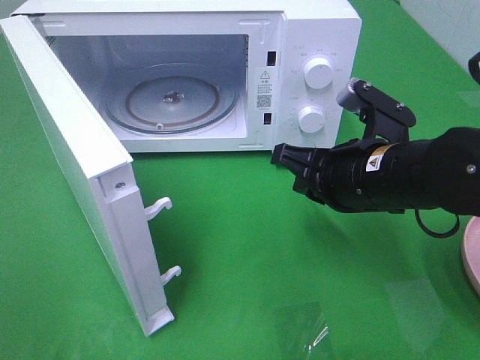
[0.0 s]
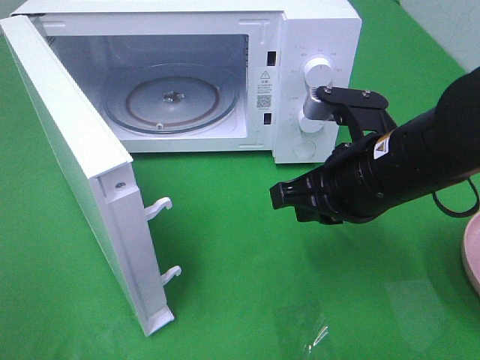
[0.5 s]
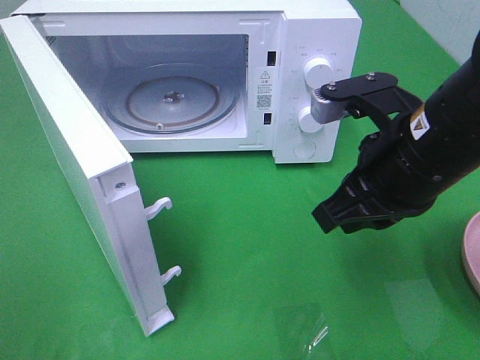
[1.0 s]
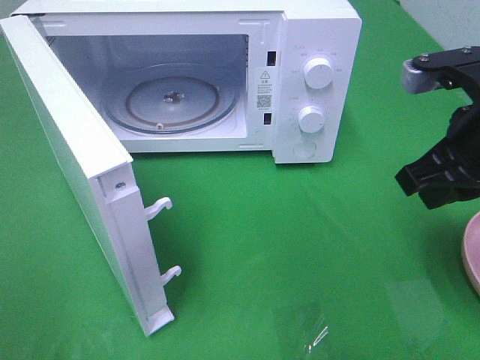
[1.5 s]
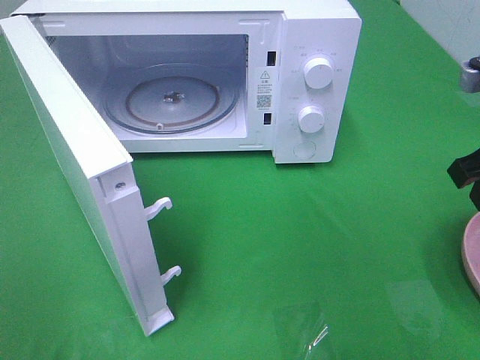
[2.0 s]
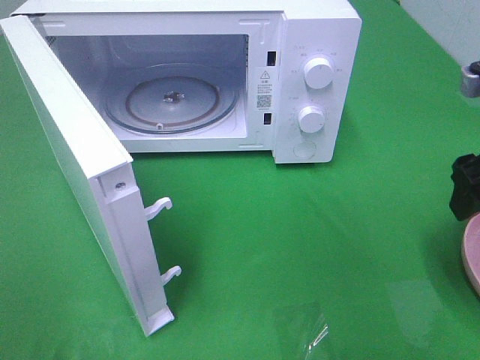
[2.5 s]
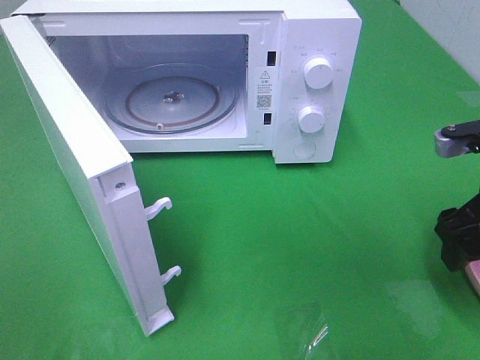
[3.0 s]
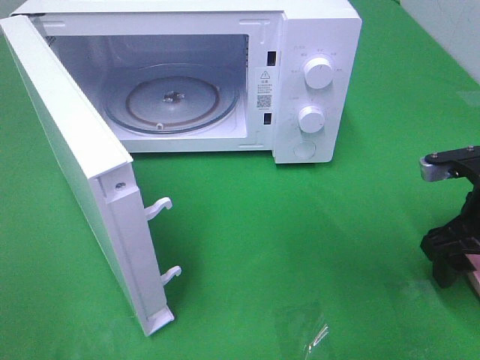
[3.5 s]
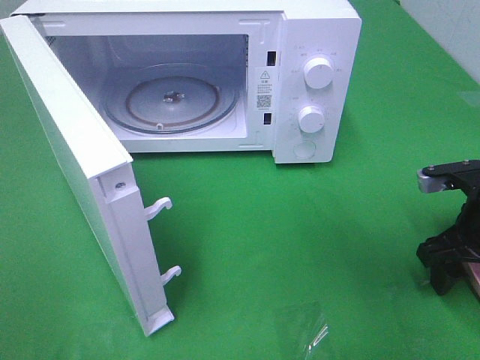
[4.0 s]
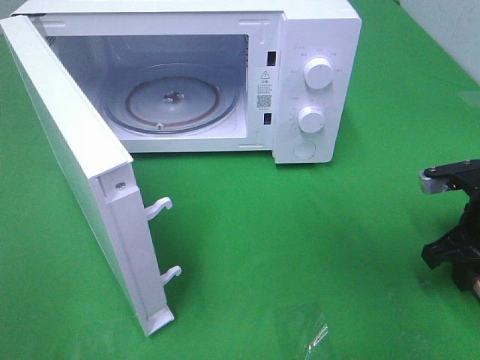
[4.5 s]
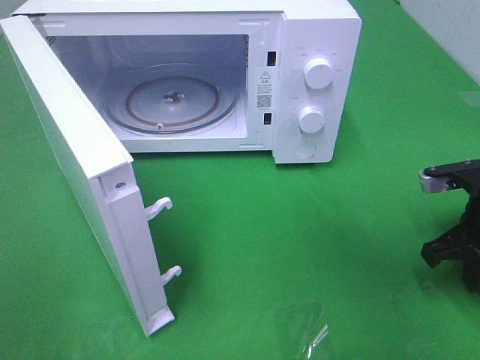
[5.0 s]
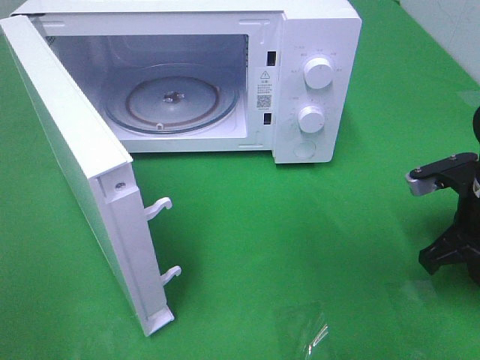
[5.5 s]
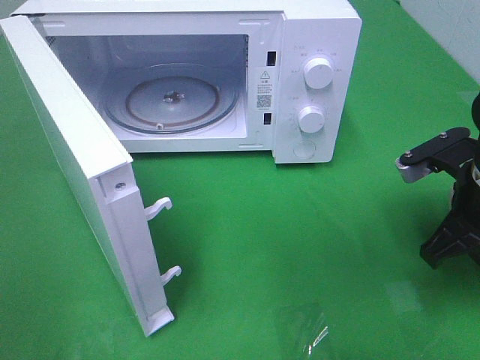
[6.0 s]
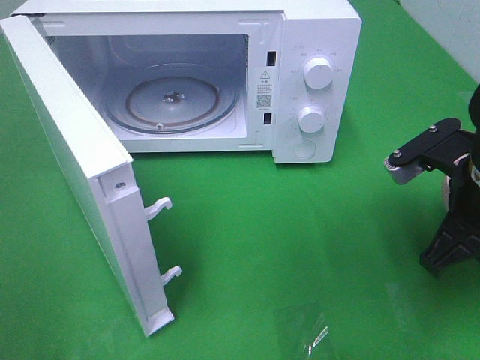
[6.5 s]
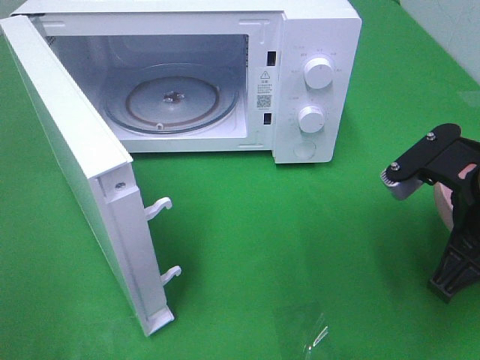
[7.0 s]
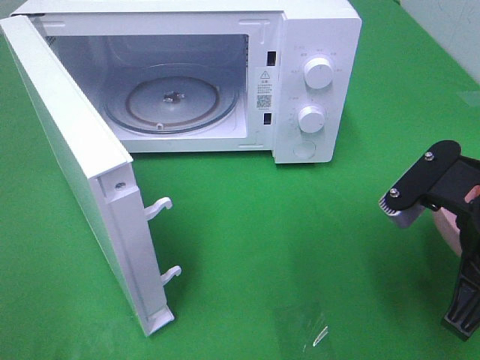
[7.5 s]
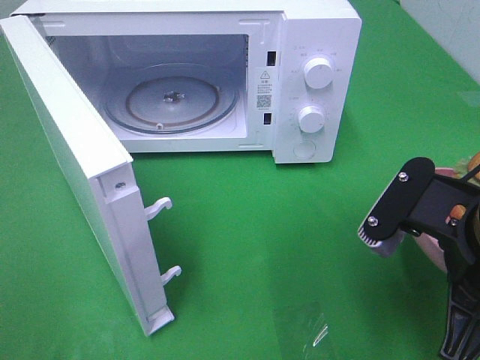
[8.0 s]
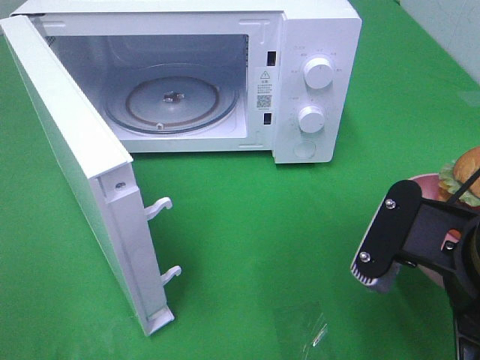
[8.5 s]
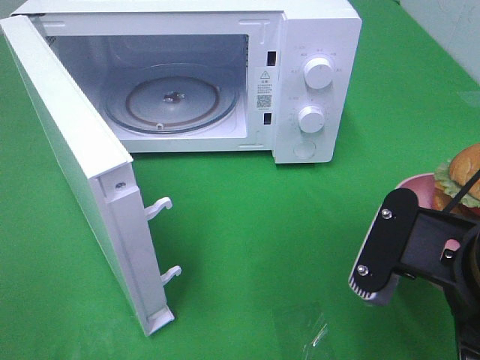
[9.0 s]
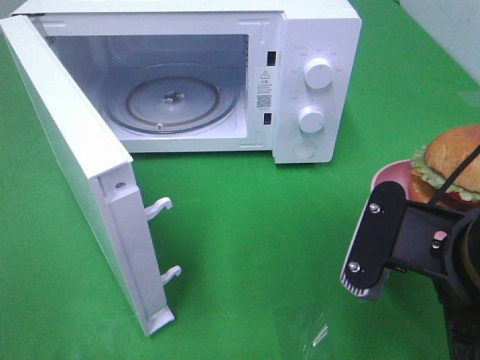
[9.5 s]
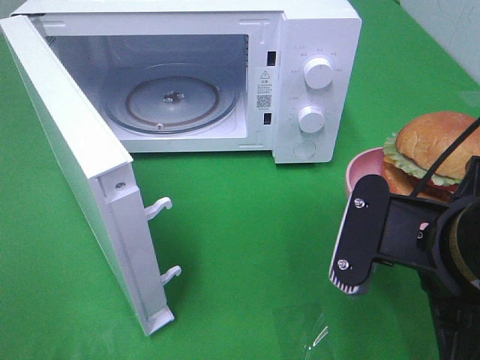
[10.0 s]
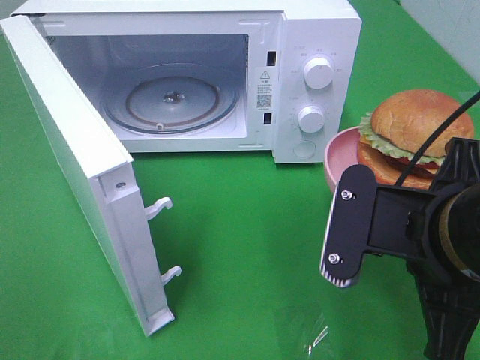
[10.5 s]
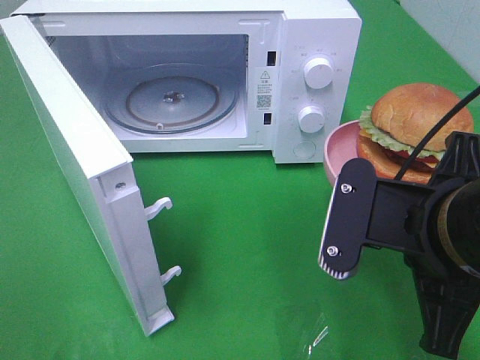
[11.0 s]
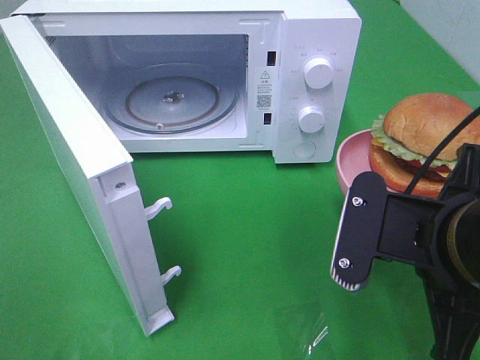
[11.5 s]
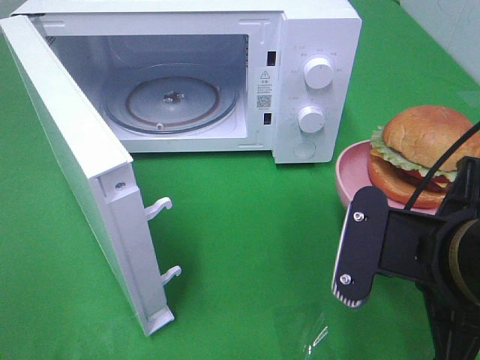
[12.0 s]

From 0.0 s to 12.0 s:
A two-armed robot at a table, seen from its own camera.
Task of the whole recording: Heat the burger.
Step, from 0.0 s to 5.5 s: Right hand: grab the plate with the hamburger.
From 0.0 s to 2.0 s: The right gripper is displaced to the right and upward by roughly 15 cm, and opens.
From 2.0 s to 4.0 s: The right gripper travels downward by some 15 cm, and opens its fingers.
From 4.0 s to 6.0 s: The right gripper is displaced upward by about 5 cm, and closes.
From 6.0 s to 8.0 s: The right gripper is displaced backward and to the left by about 10 cm.
From 10.0 s to 12.0 s: The grippers move only a little.

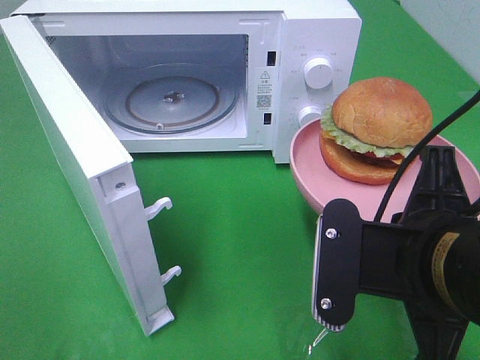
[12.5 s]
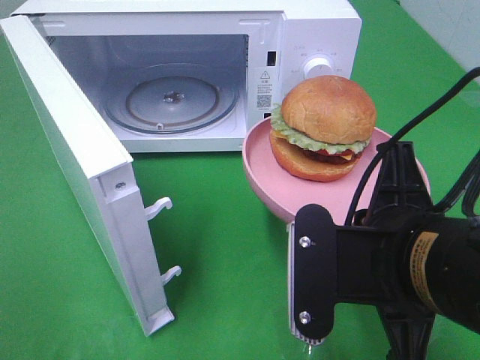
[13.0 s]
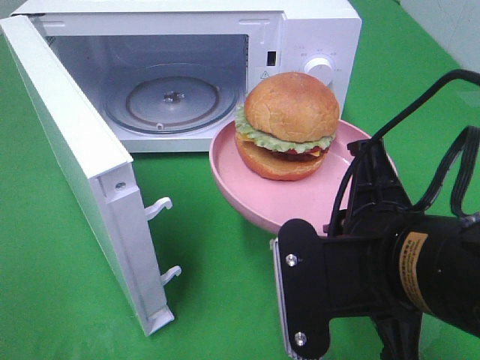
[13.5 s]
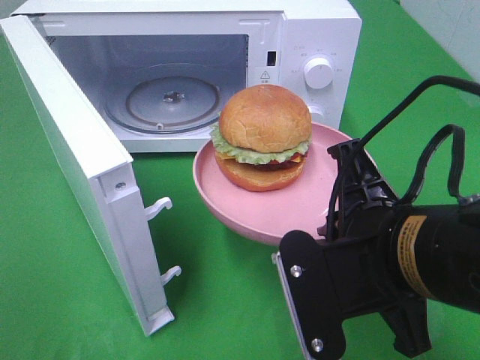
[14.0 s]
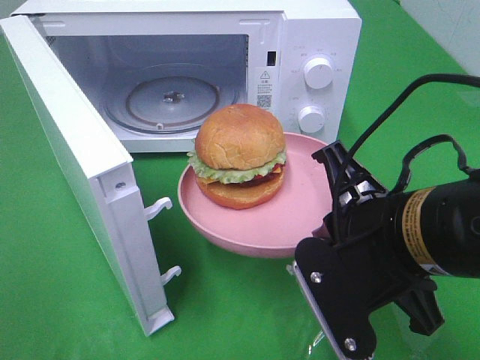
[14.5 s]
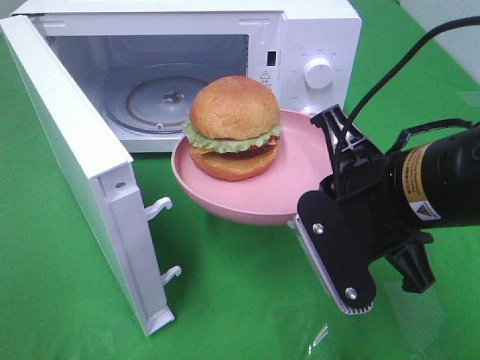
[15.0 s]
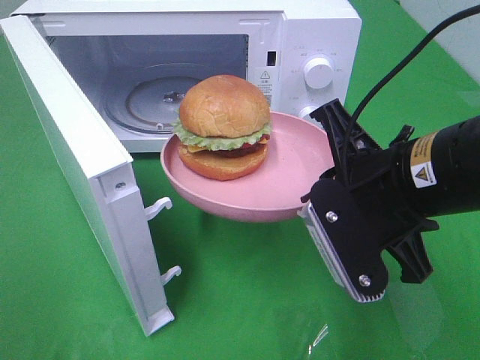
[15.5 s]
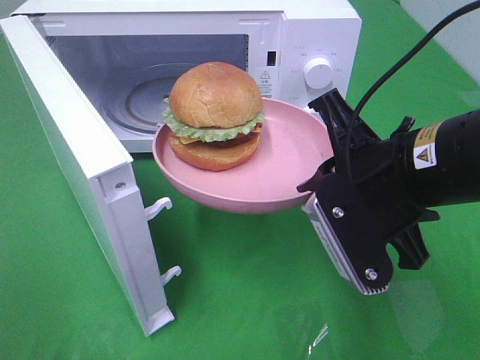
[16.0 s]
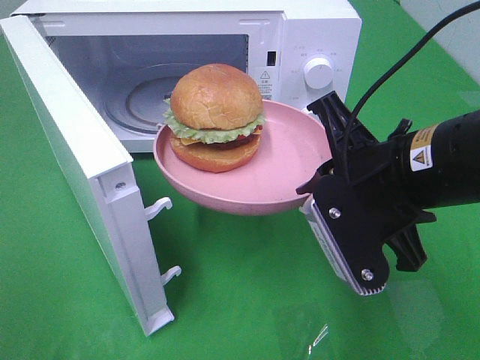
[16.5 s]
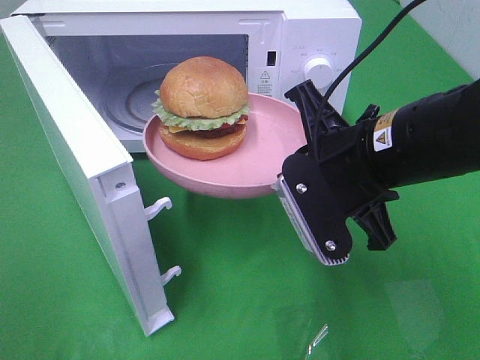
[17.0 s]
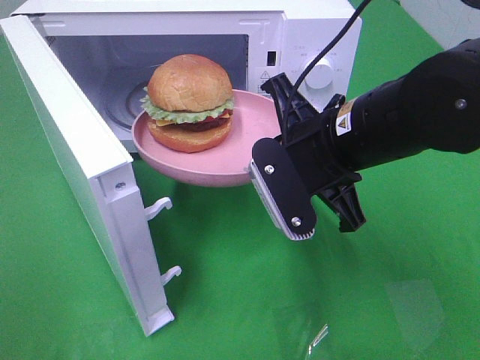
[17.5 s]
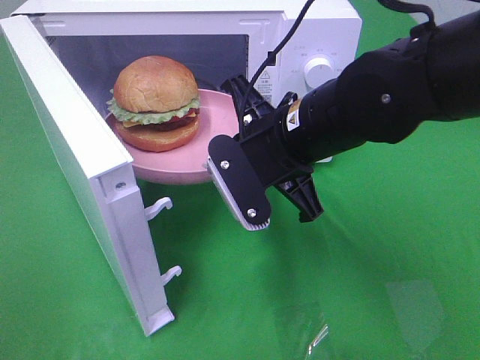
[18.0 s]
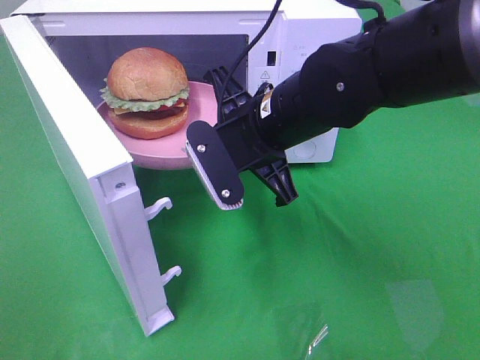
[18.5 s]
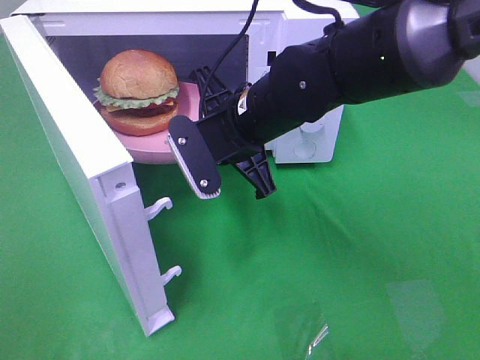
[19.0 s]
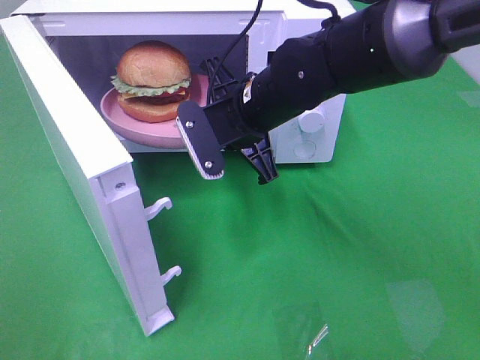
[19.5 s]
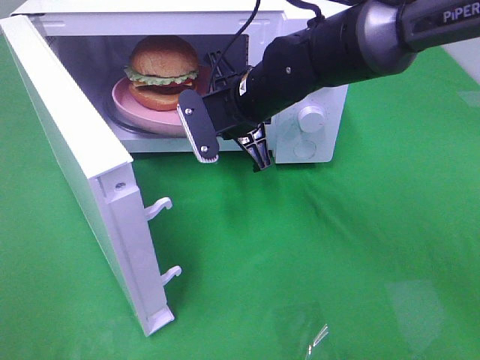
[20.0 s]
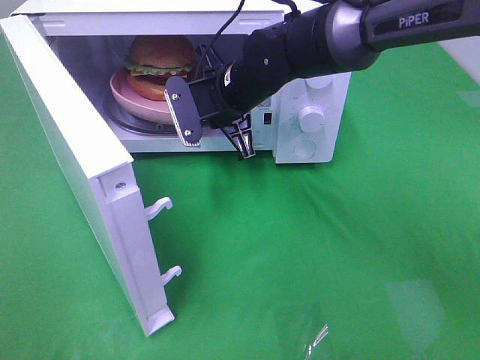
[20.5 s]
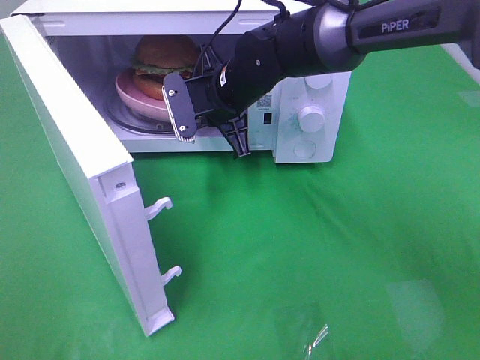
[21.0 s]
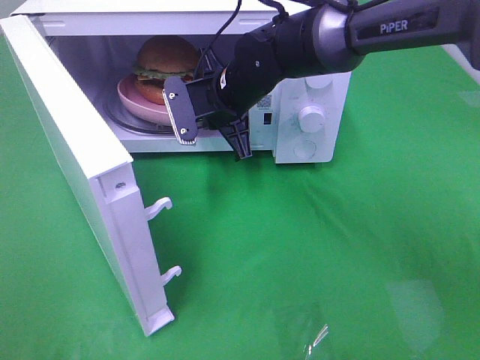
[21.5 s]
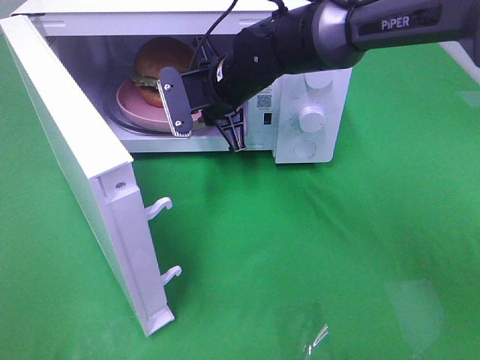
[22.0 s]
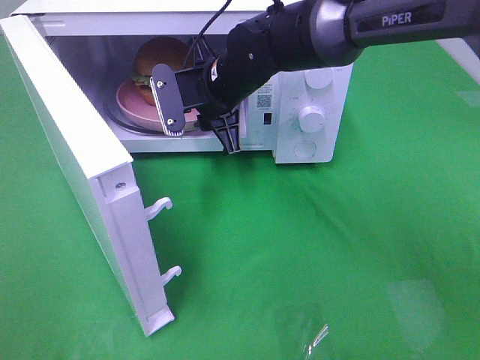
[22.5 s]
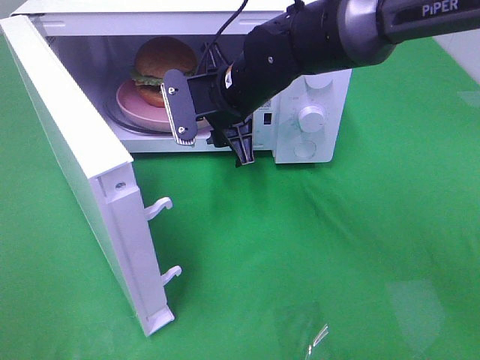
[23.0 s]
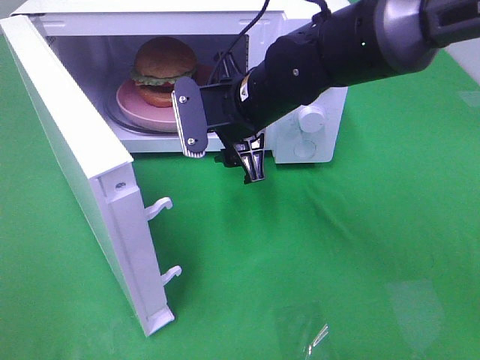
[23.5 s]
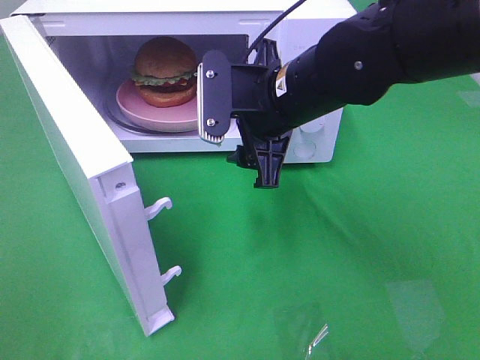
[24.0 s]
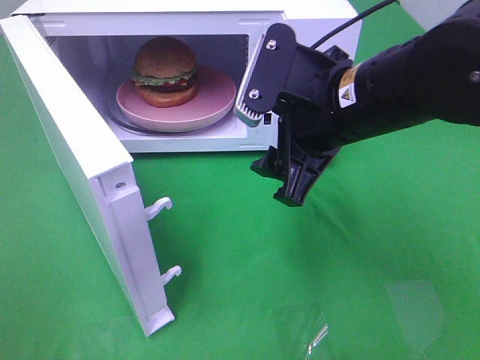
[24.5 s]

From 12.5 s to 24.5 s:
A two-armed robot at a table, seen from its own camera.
Task of the whole recording: Heat the burger.
Step, from 12.5 s to 22.0 s: Right hand: place the plate in the microwave.
From 14.5 s to 16.5 s: The right gripper shifts by roughly 5 cm.
From 16.5 s to 18.5 s: The right gripper moves to the left and forward, roughly 15 cm.
From 18.5 s to 20.5 s: The right gripper travels forward by roughly 10 cm.
From 20.5 s to 22.5 s: The right gripper opens.
From 22.5 s to 24.5 s: The right gripper goes roughly 20 cm backward, to the right and upward, and opens its fingers.

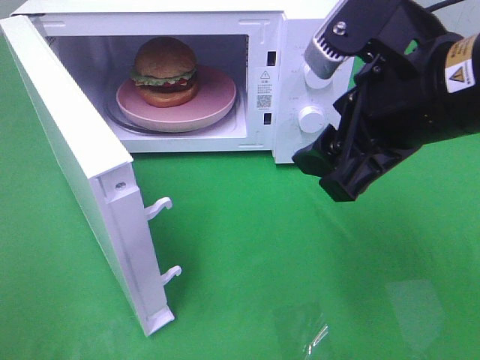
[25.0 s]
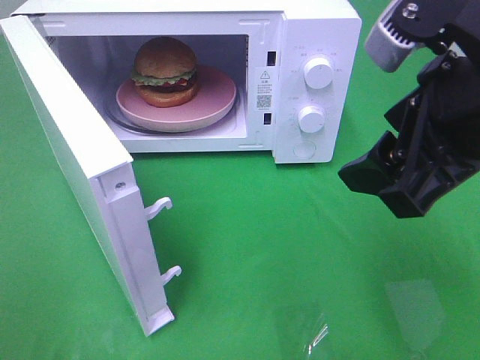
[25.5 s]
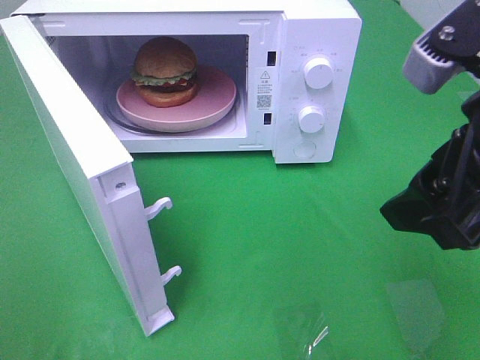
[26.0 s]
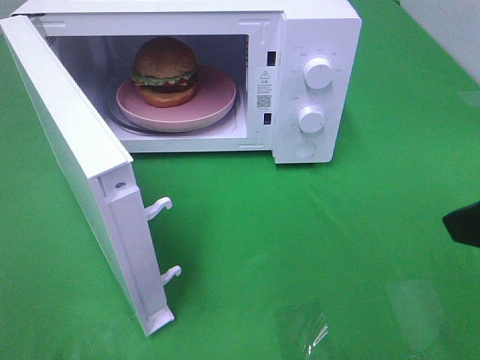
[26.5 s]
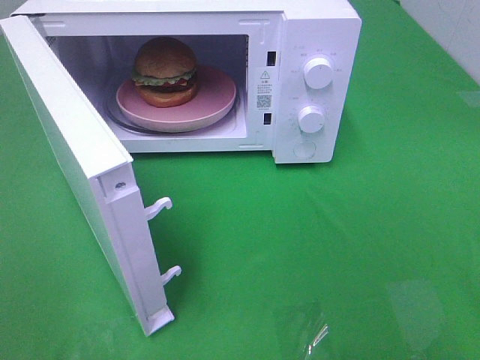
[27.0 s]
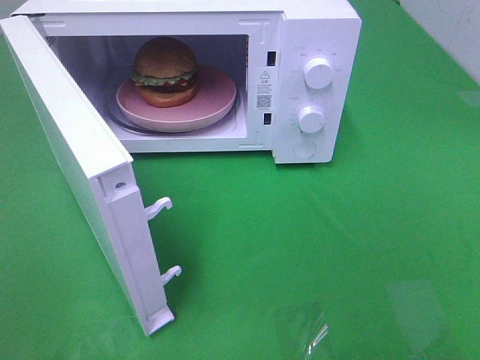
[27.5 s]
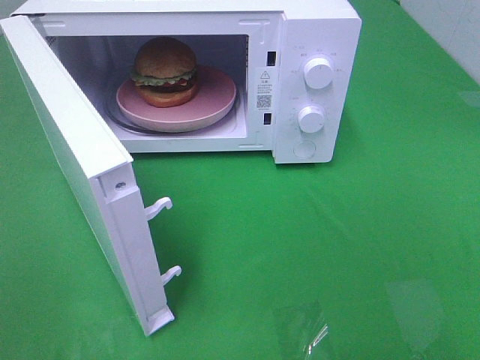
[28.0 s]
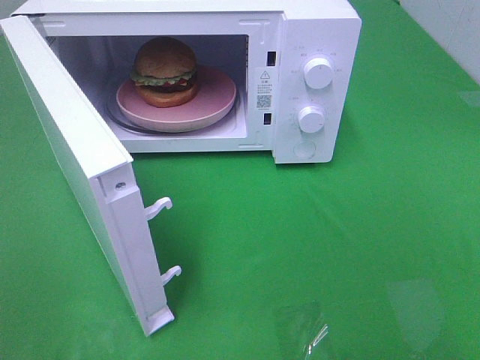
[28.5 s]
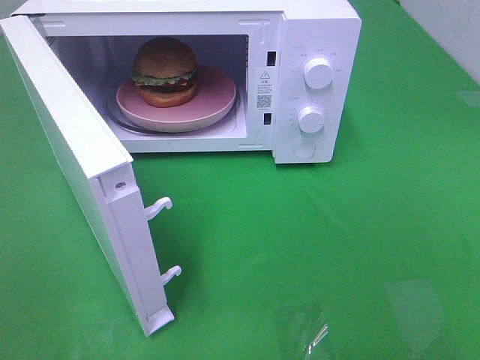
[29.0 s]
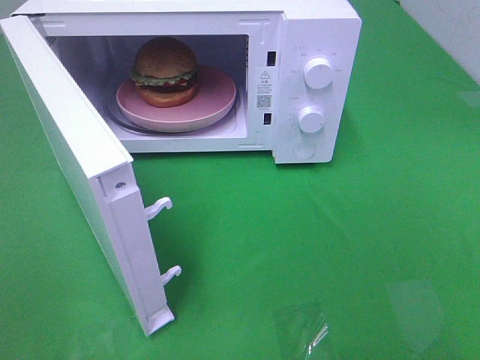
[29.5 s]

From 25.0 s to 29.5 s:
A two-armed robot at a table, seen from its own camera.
Task of the whole recording: Heat the burger.
From 25.0 s to 27.0 s: The right gripper shifts some 20 cm to the right and backward.
